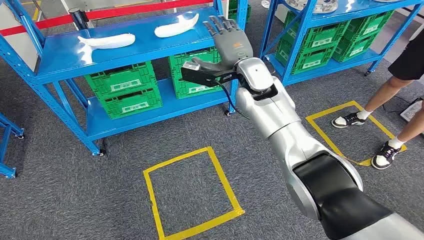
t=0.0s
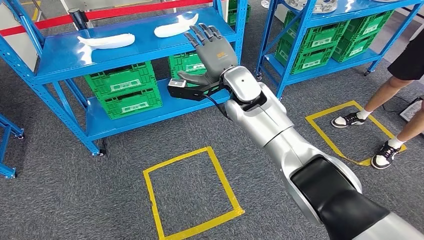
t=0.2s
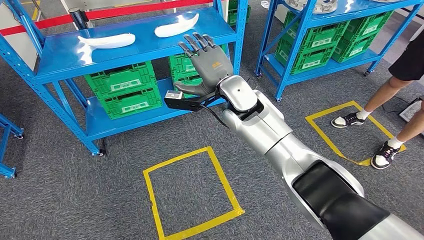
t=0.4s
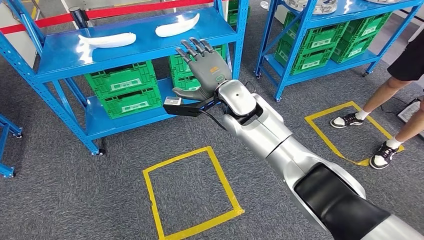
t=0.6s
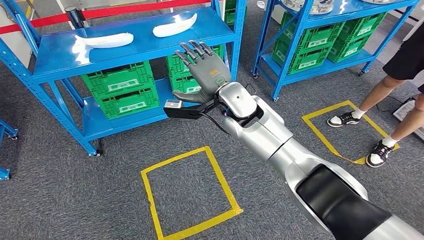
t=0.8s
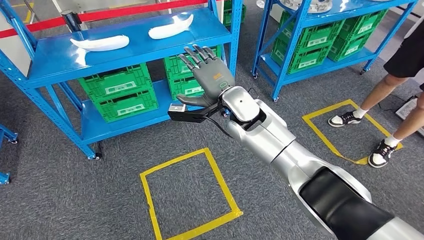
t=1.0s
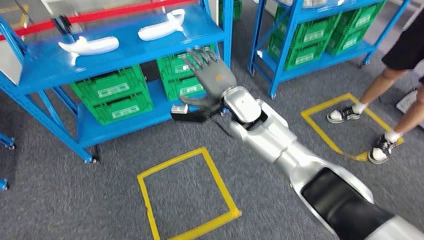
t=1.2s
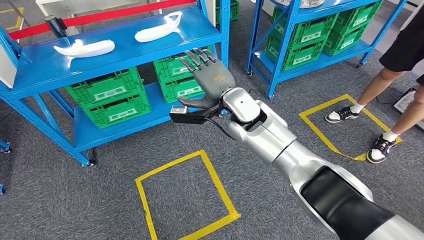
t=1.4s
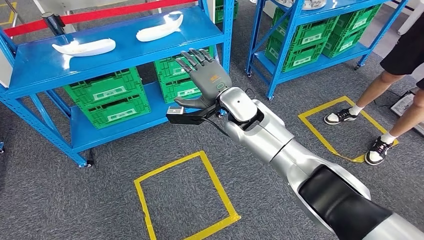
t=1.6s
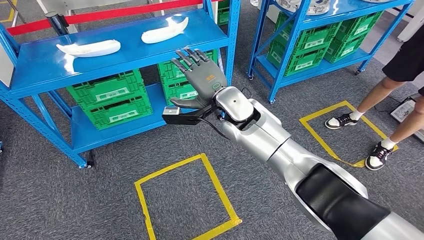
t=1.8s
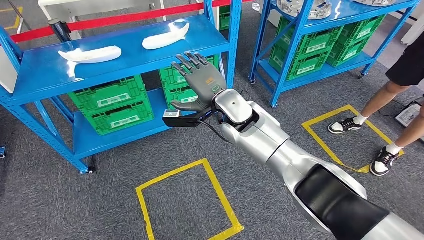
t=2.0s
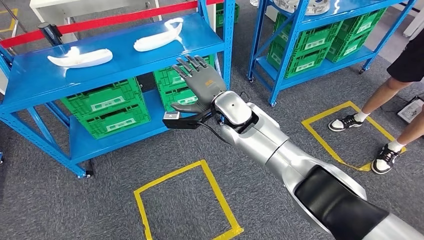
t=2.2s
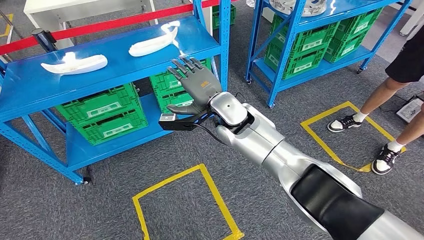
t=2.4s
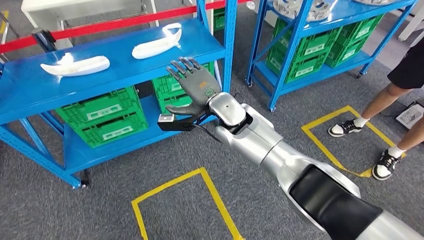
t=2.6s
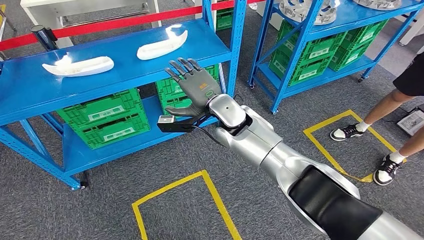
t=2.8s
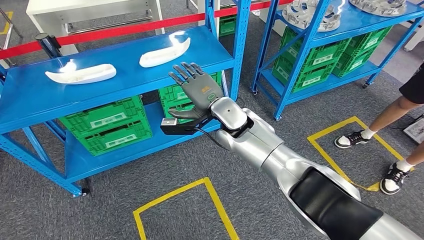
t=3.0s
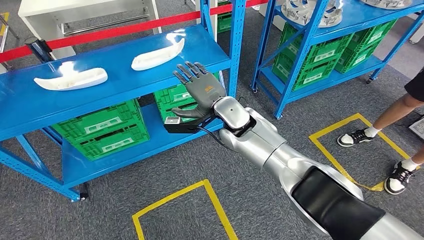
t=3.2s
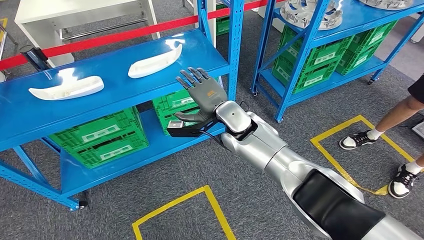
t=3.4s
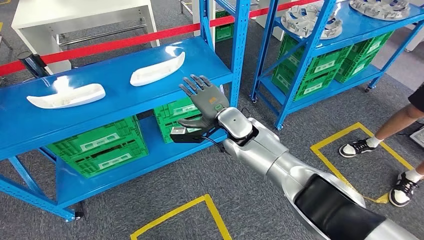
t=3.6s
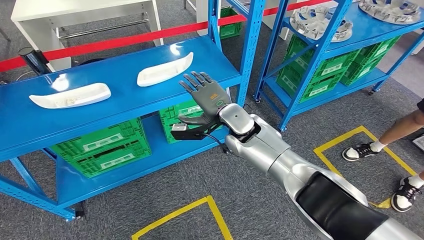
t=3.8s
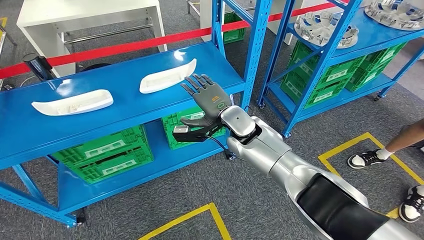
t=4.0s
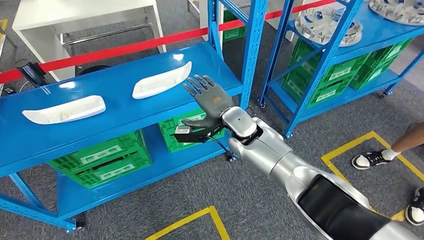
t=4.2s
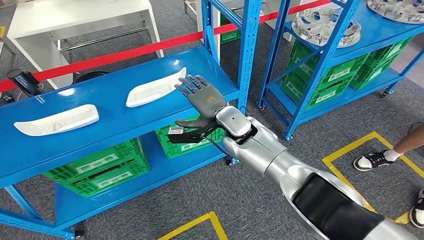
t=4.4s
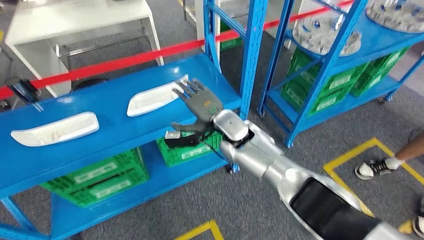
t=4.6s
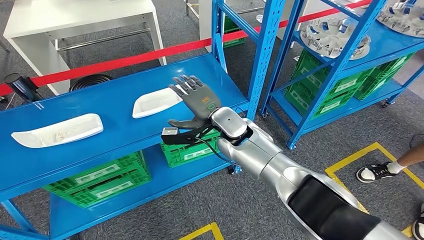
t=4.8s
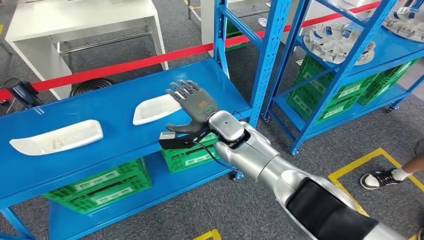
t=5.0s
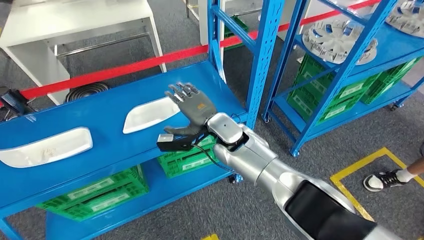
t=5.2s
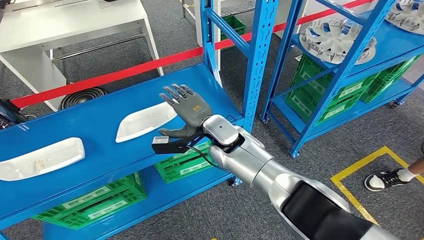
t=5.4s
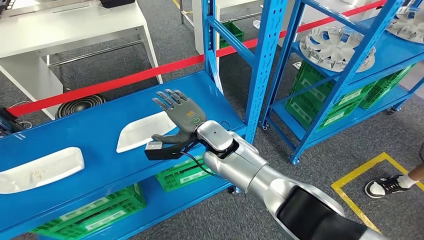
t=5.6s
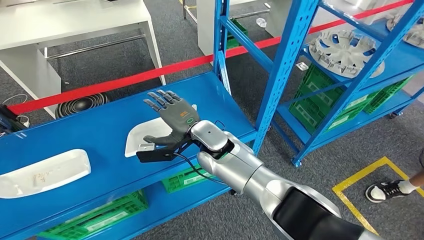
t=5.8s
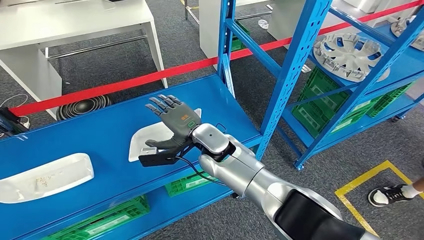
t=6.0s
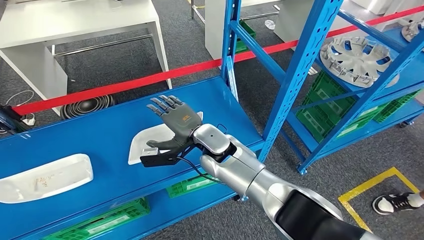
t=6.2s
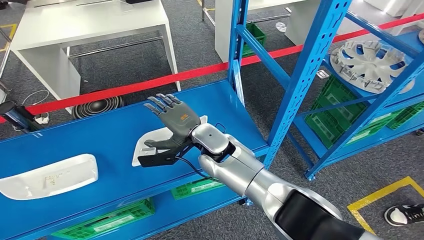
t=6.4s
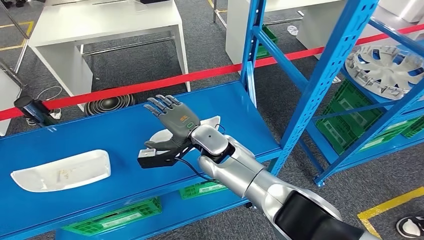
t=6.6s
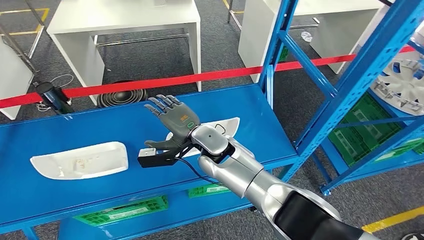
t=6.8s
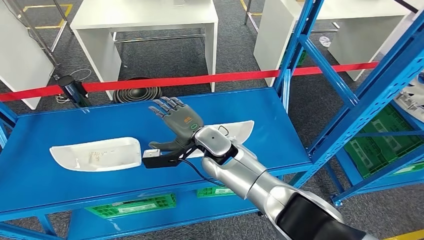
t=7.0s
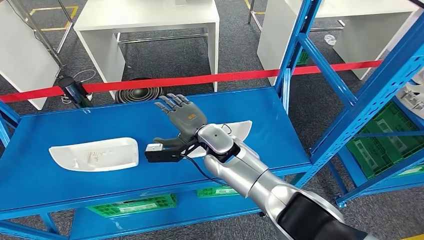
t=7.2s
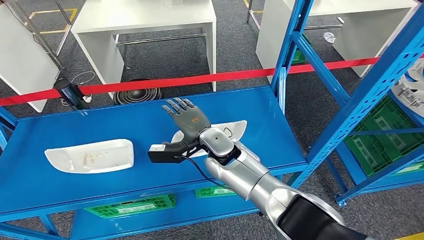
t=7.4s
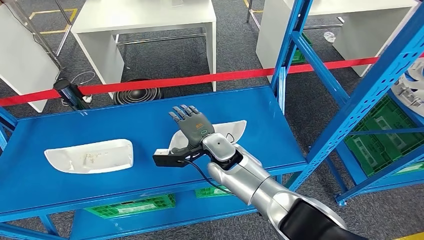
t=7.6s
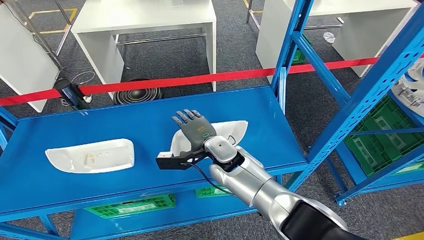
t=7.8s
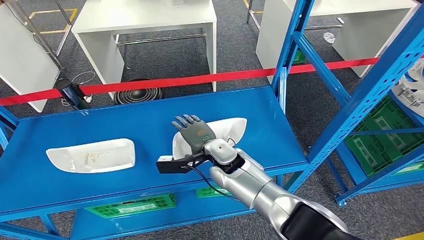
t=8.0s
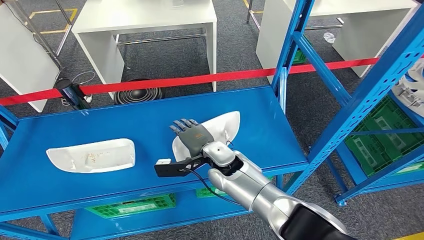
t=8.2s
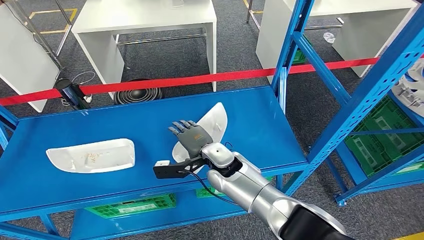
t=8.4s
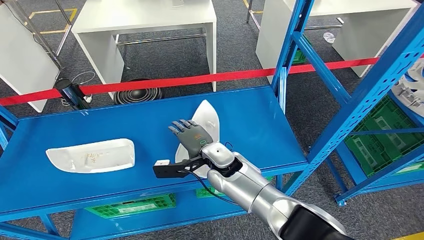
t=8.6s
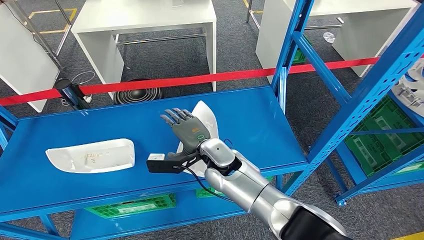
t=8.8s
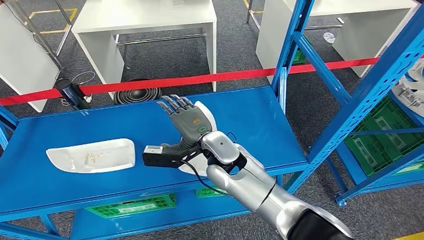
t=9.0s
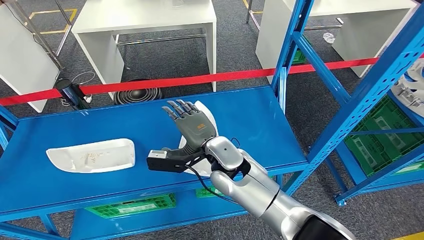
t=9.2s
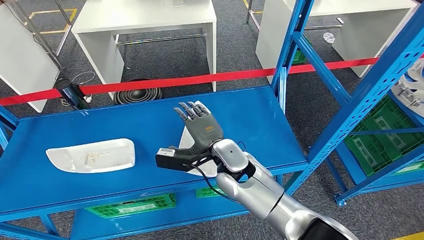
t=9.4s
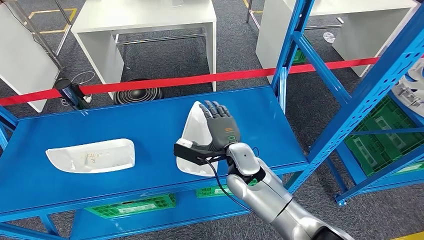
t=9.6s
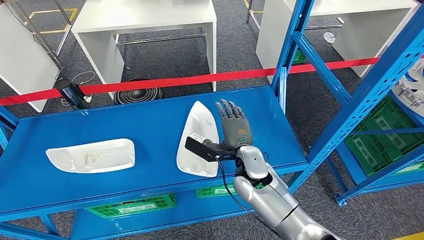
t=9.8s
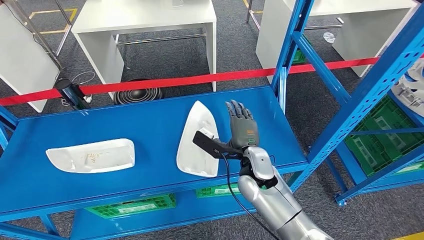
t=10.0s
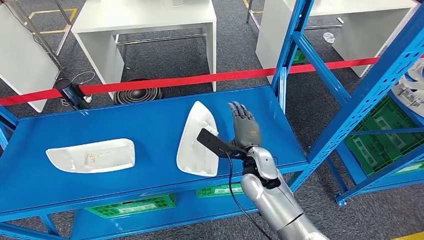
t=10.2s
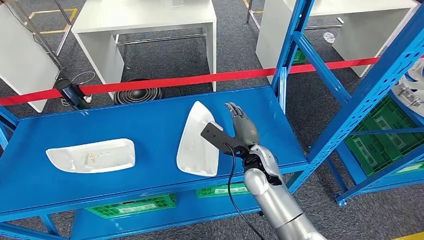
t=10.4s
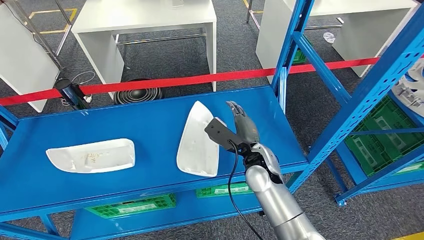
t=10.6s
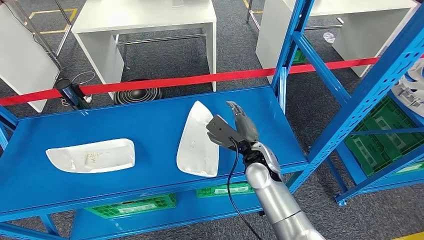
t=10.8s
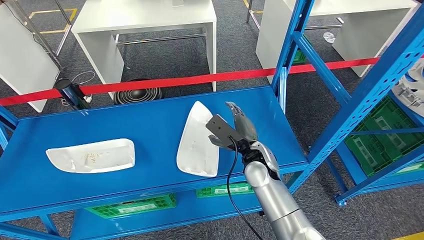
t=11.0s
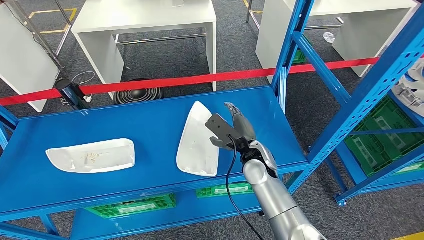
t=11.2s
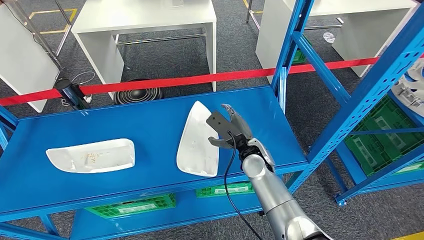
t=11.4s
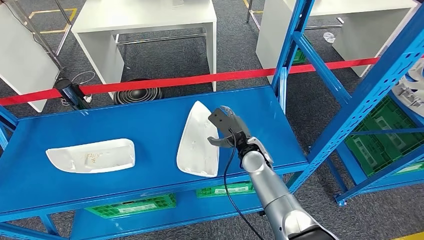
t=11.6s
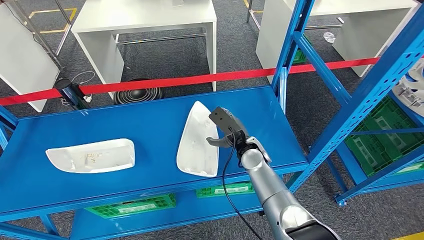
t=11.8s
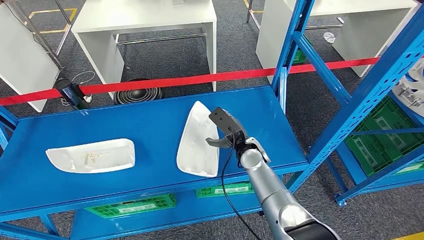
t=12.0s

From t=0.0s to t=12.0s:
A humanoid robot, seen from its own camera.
From t=7.6s to t=9.0s: The hands move only a little.
From t=9.0s to t=10.4s: The right hand moves to the right, approximately 5 cm.
From t=10.4s to t=12.0s: The right hand moves roughly 5 cm.

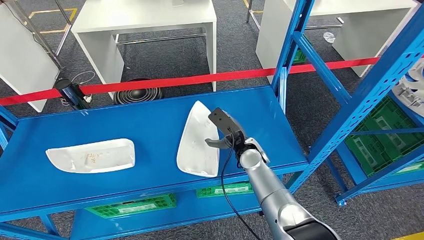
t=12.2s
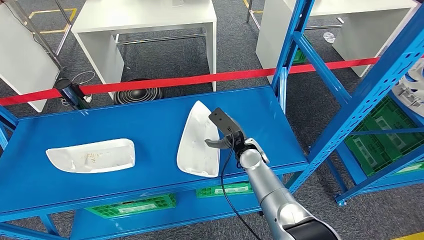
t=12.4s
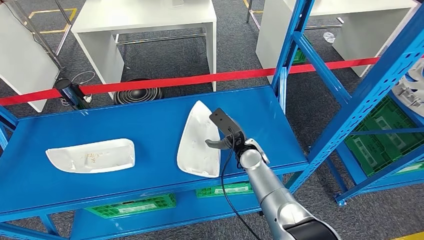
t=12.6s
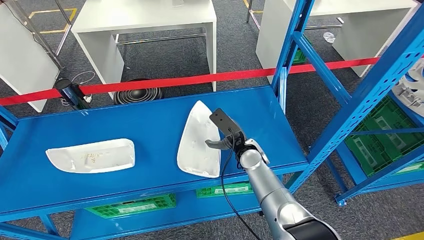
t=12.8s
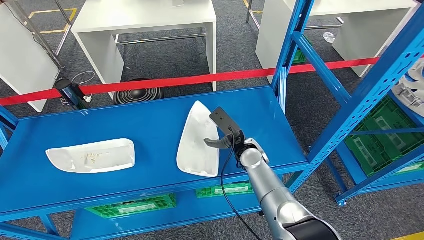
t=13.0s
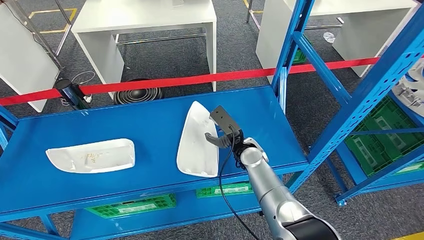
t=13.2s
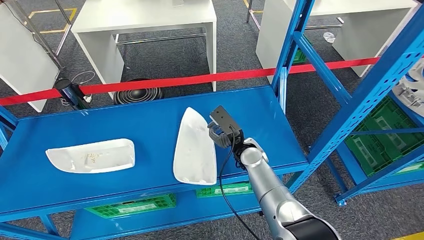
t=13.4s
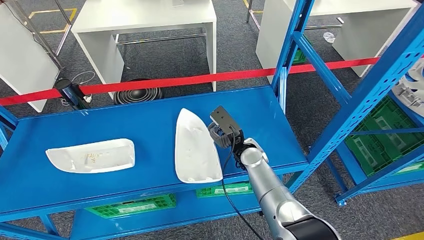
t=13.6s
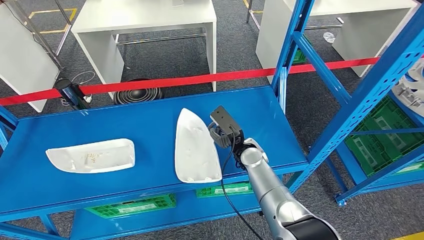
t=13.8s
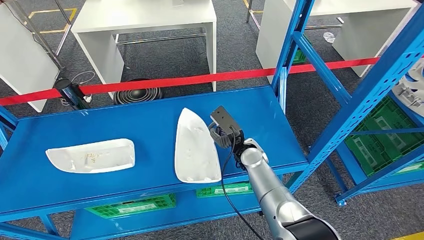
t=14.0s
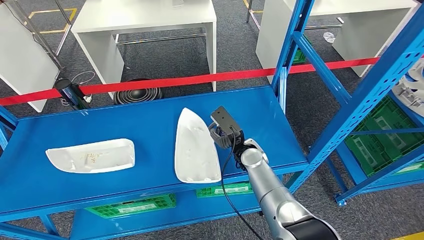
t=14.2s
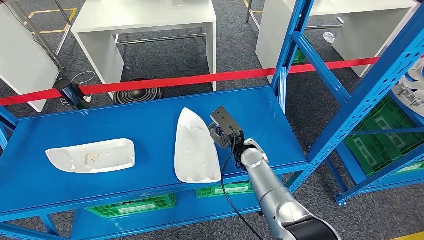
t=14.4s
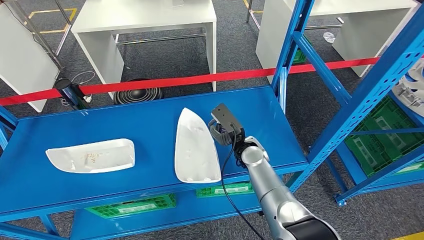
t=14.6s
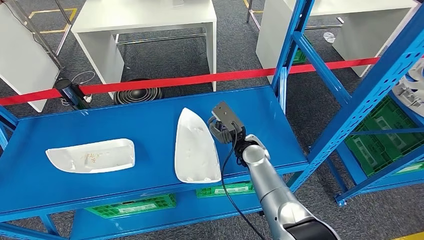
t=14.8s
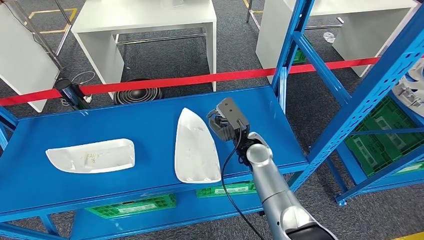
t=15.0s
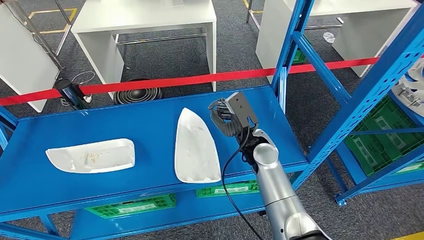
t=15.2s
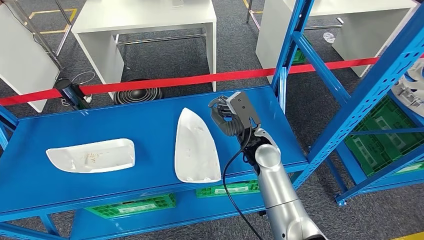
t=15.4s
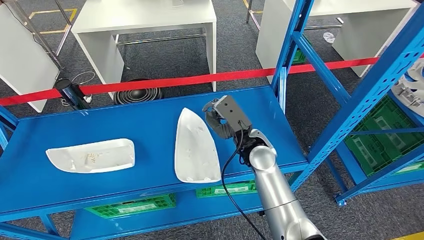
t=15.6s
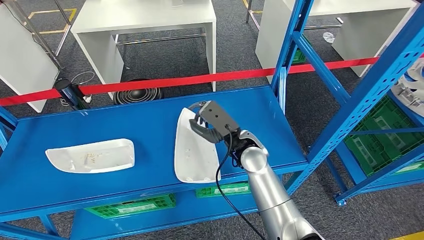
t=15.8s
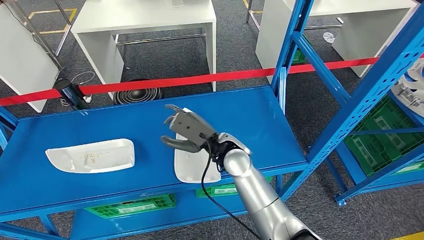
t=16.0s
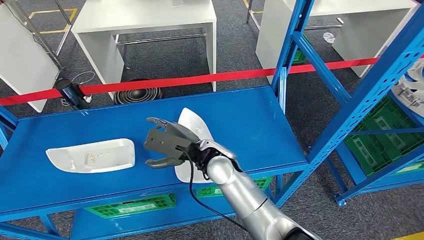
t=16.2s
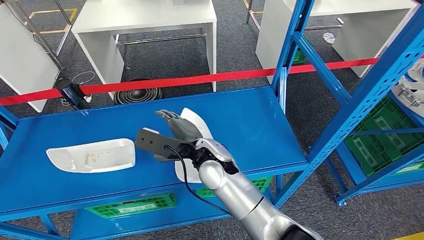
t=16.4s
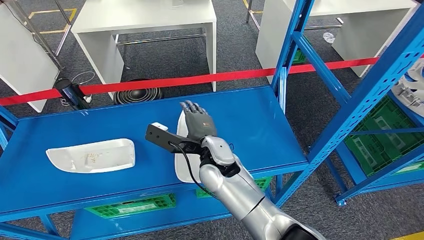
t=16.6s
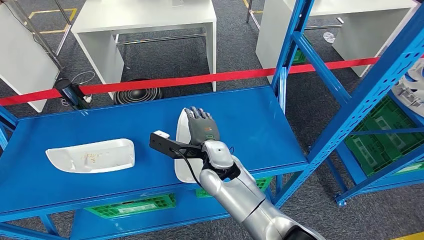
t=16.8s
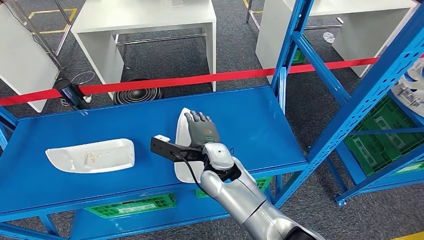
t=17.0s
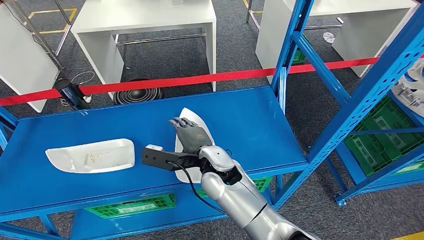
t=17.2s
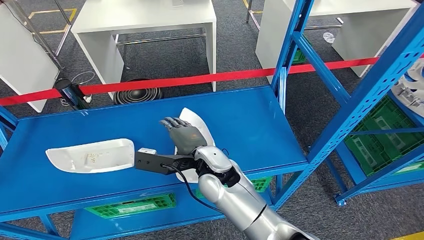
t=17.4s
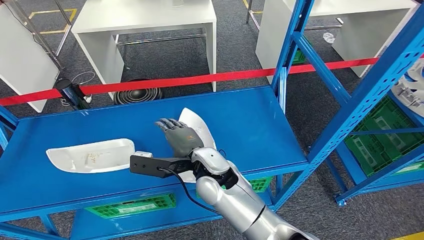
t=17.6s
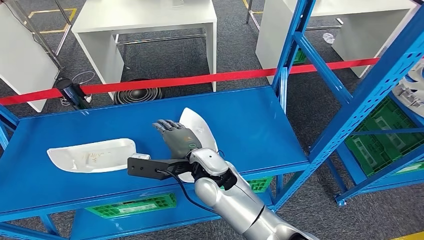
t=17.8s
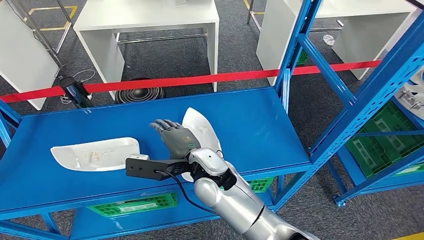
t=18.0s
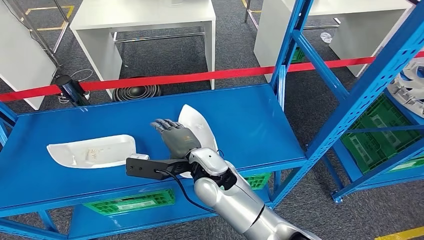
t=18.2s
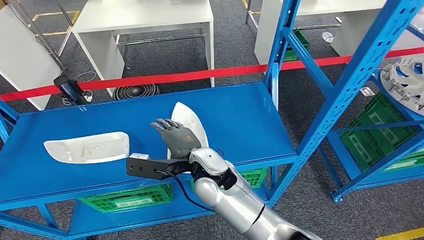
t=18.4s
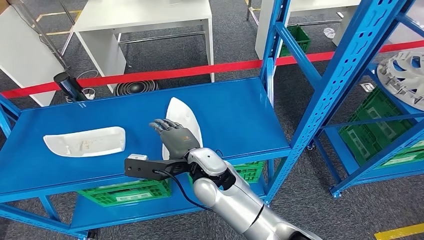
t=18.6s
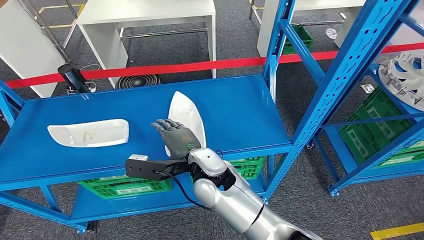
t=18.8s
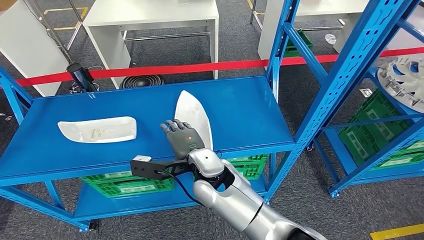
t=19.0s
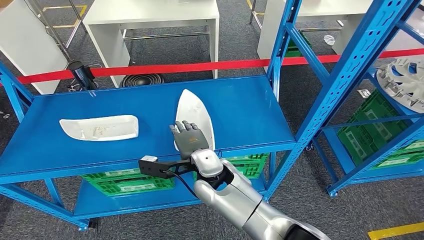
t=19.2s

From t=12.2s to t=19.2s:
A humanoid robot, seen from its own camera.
From t=12.2s to t=15.0s: The hands move only a little.
From t=15.0s to t=16.4s: The right hand heads to the left and upward, covering about 15 cm.
